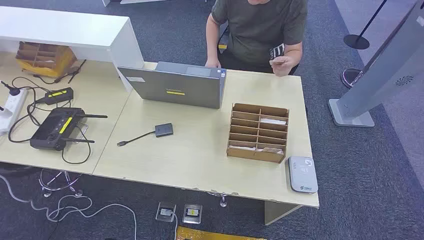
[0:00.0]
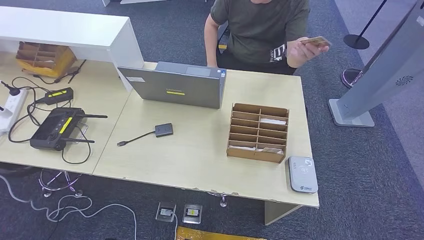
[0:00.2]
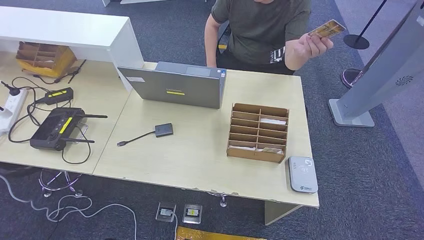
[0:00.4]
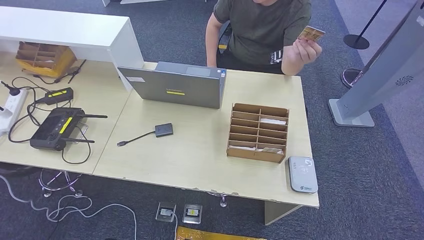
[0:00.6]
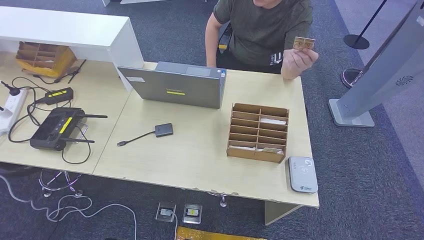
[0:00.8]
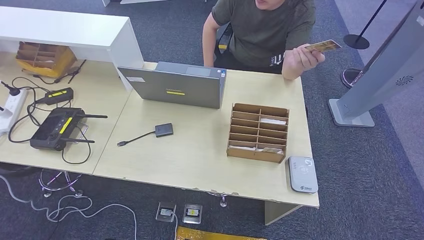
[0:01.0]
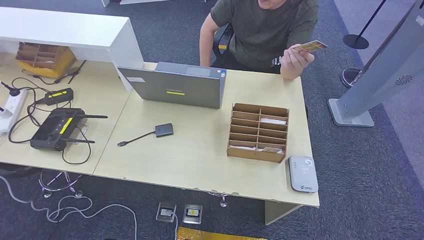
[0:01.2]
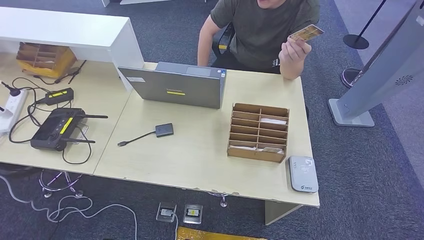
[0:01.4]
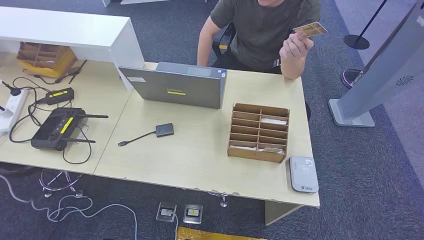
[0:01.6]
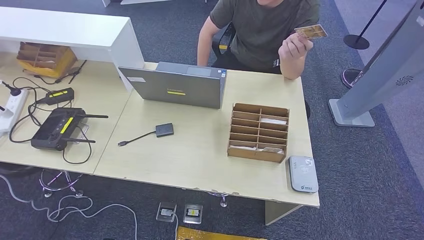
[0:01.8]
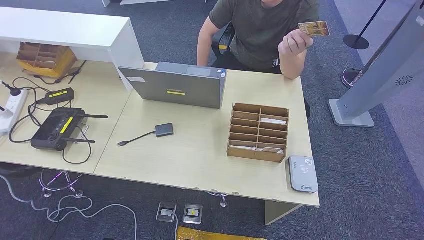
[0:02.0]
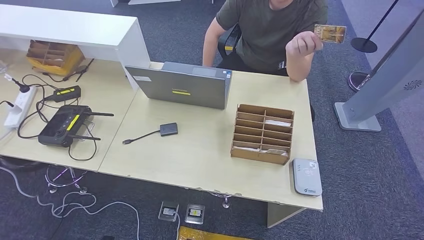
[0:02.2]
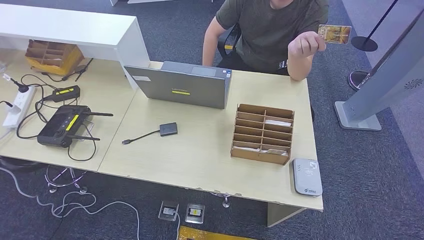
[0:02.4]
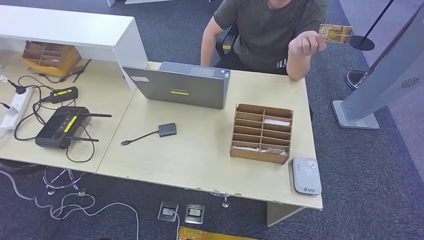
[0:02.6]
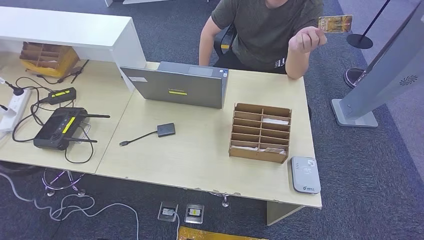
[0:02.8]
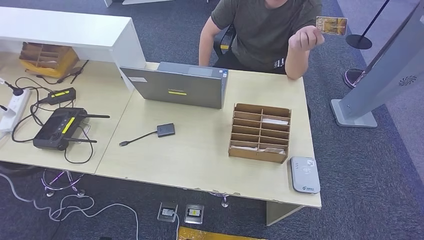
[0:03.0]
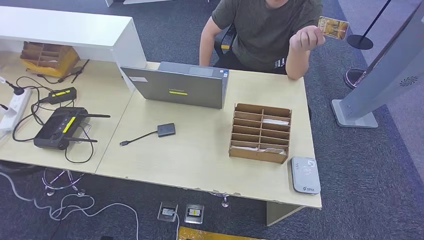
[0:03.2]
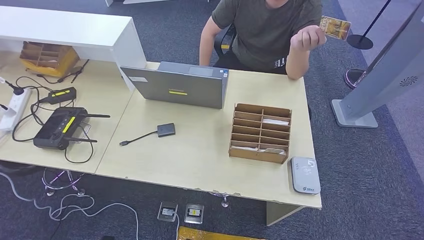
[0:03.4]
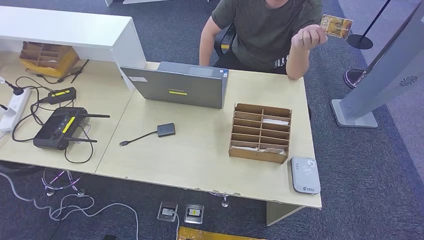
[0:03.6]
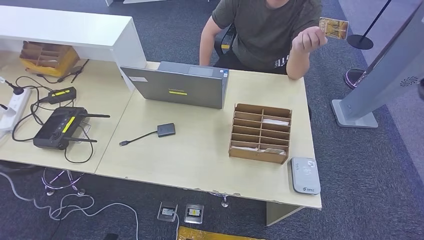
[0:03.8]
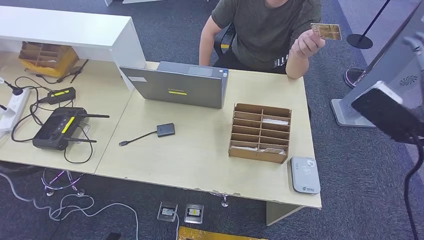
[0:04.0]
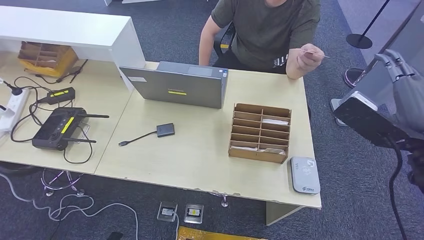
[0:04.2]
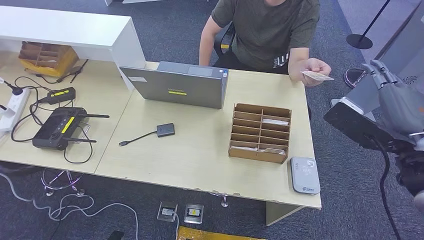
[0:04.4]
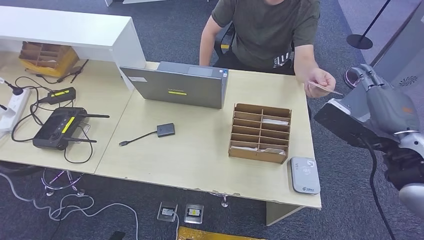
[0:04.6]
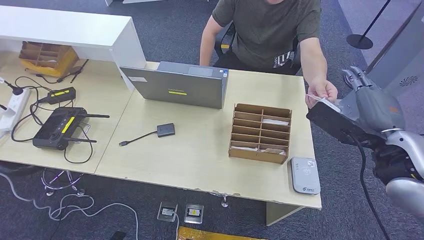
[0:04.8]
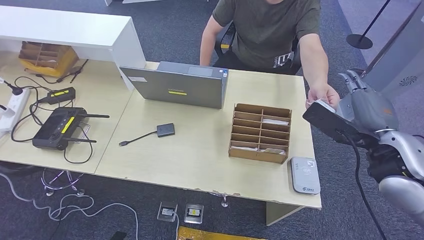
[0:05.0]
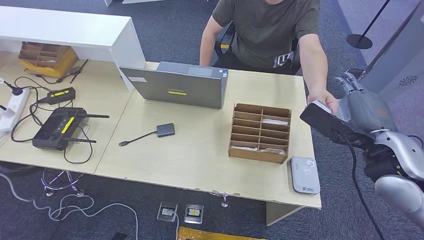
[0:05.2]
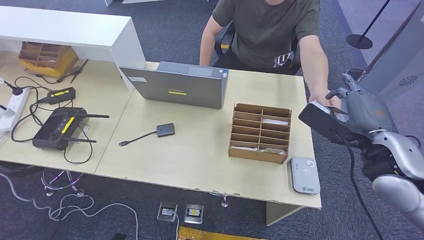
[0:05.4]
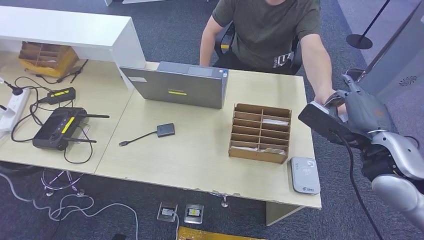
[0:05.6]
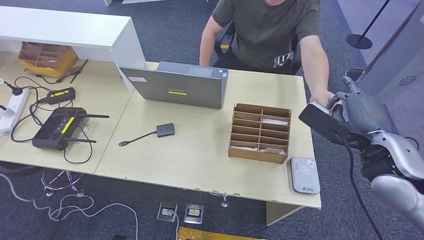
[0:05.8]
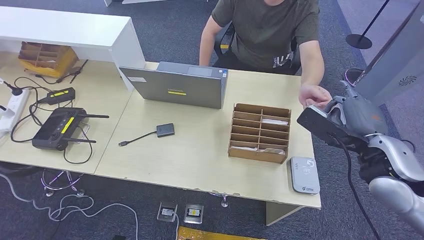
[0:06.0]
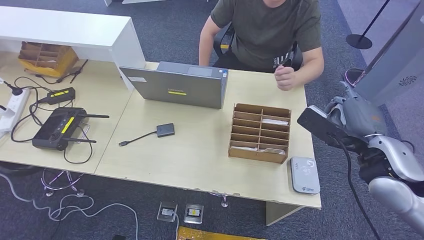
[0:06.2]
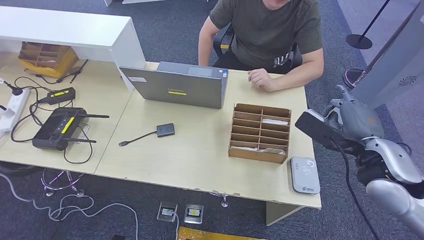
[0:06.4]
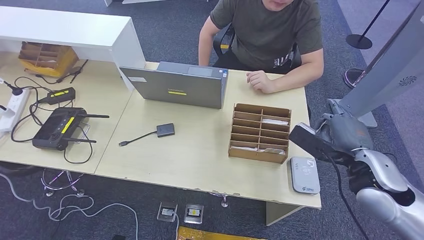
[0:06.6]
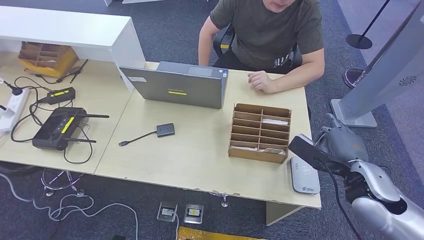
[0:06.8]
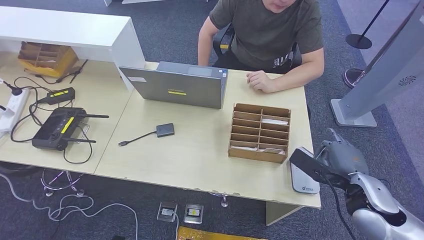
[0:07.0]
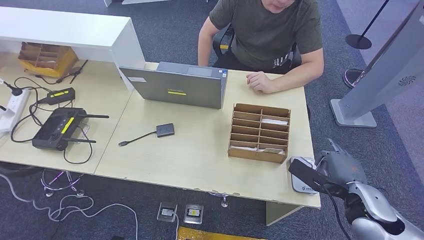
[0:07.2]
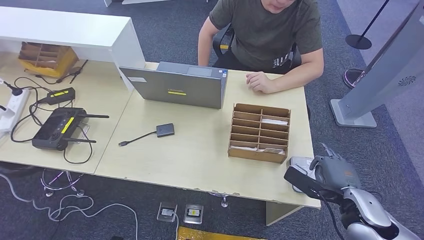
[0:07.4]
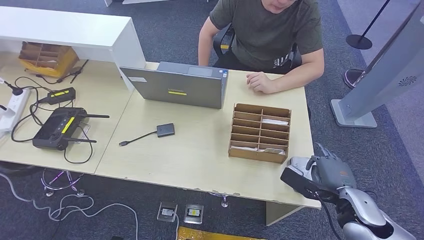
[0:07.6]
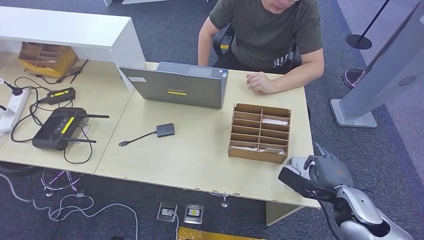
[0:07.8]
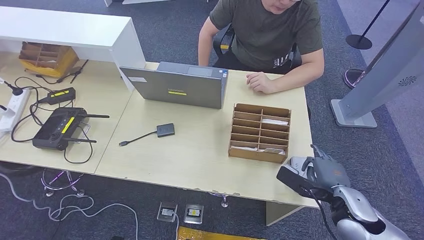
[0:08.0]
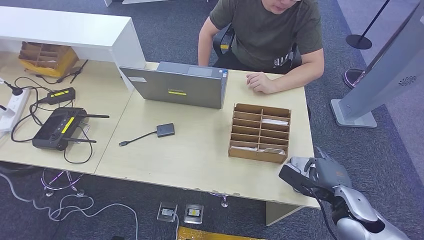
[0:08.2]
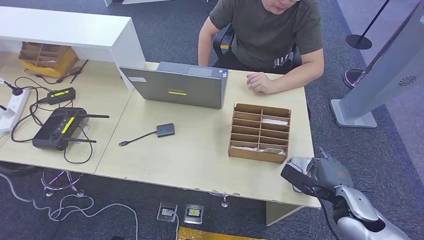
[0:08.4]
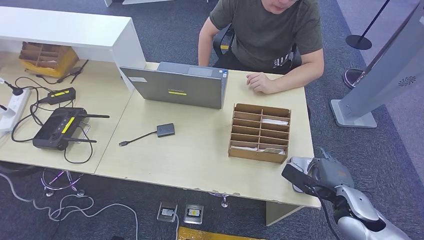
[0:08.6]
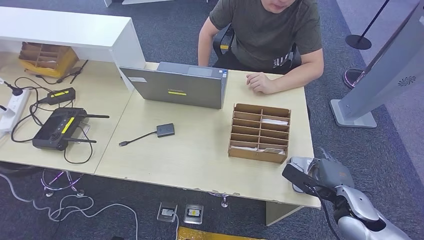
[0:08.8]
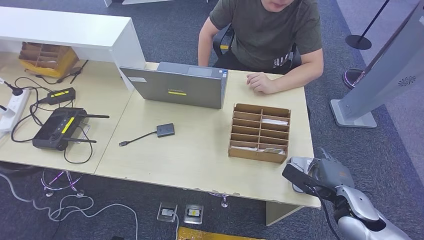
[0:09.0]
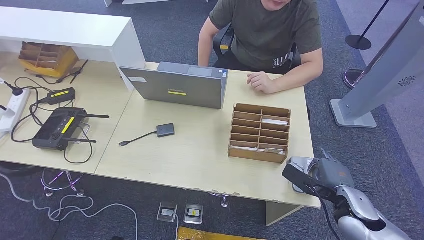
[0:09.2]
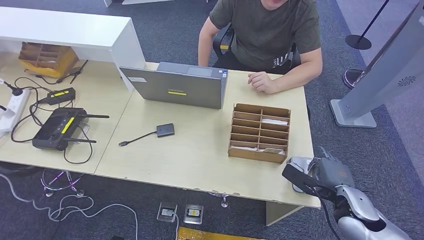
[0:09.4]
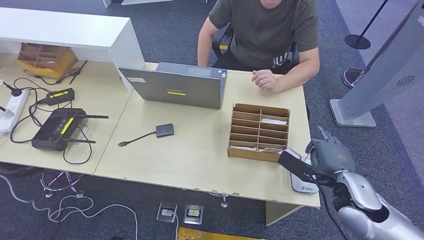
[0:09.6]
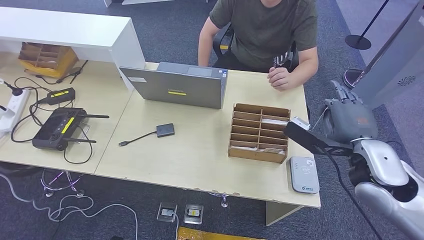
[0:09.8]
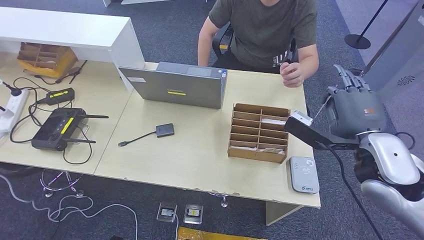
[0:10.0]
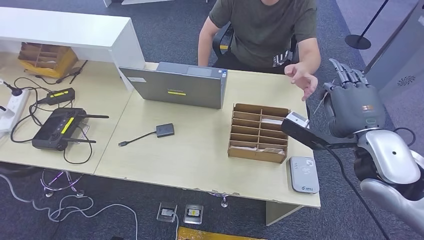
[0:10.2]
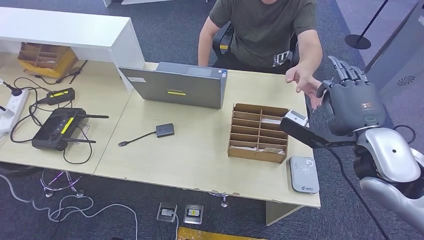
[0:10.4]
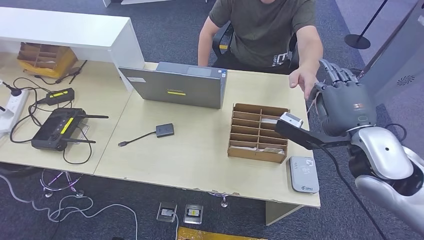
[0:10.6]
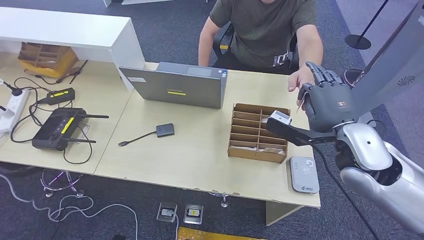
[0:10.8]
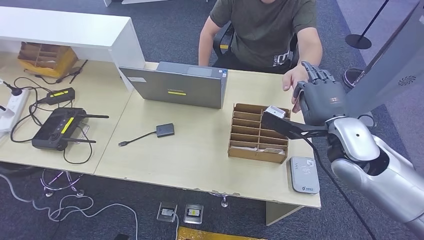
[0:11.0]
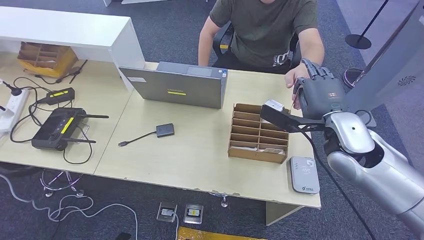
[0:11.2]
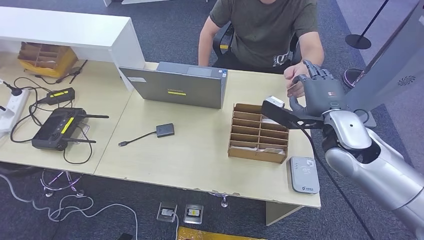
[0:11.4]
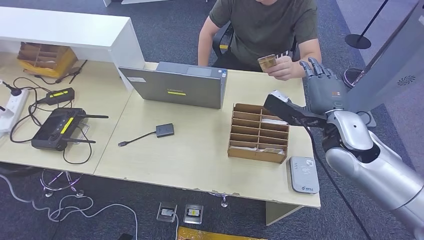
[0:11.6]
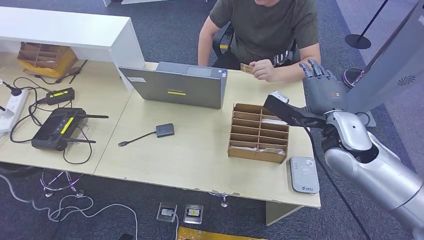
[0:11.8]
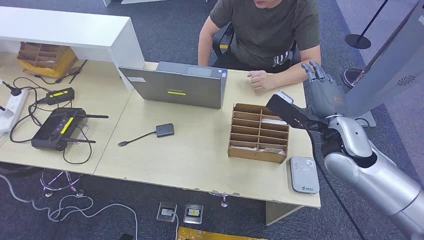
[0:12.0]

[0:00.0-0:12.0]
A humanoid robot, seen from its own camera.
Step, 0.0 to 6.8 s: Take the ID card from the person's hand.
Step, 7.0 to 9.0 s: Place the ID card on the card reader.
Step, 9.2 to 11.8 s: Hand the ID card to the person.
1.6 to 3.0 s: The right hand heads upward, covering some 40 cm.
3.0 to 4.4 s: The right hand shifts approximately 30 cm to the left and forward.
4.4 to 6.0 s: The right hand heads downward, covering about 5 cm.
6.0 to 7.6 s: The right hand goes approximately 15 cm downward.
7.6 to 9.0 s: The hands move only a little.
9.0 to 10.4 s: The right hand goes about 20 cm upward.
10.4 to 12.0 s: The right hand is displaced forward and downward by about 5 cm.

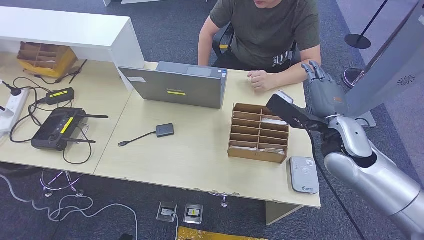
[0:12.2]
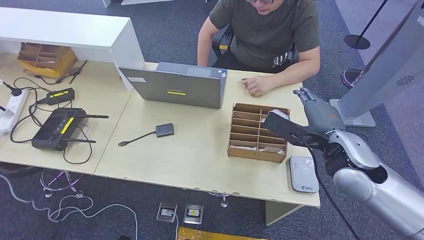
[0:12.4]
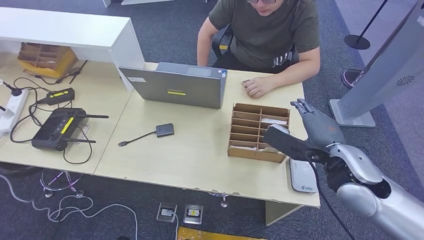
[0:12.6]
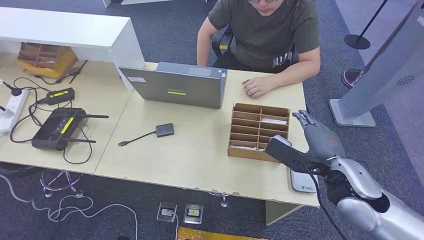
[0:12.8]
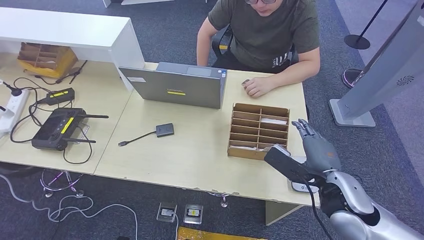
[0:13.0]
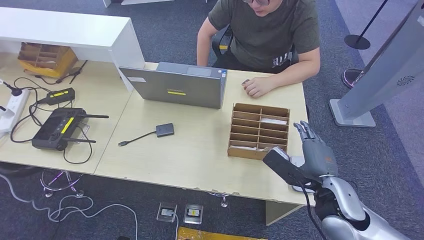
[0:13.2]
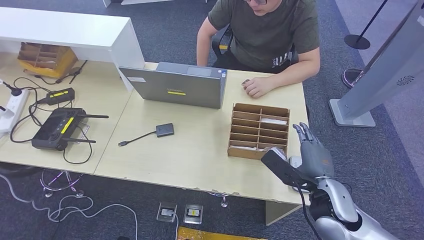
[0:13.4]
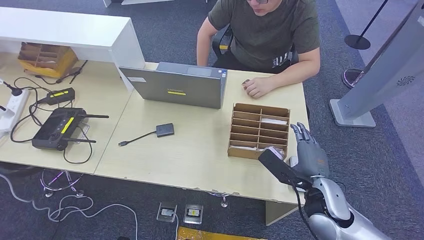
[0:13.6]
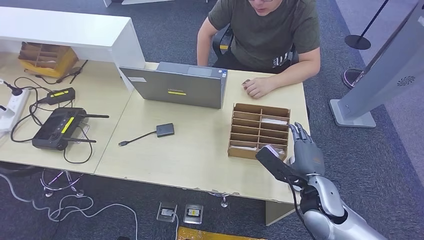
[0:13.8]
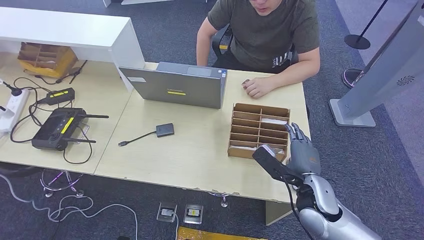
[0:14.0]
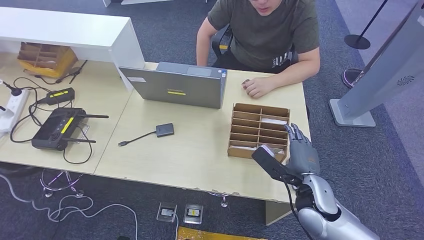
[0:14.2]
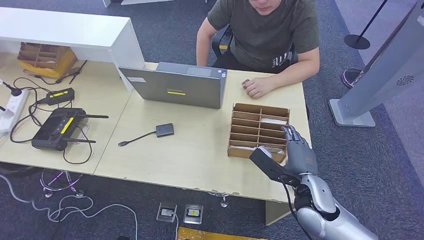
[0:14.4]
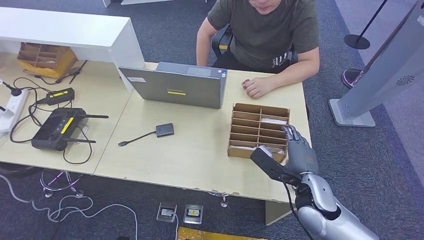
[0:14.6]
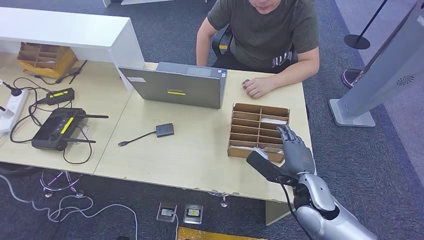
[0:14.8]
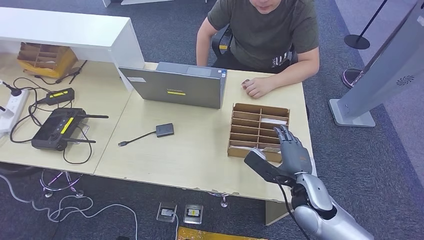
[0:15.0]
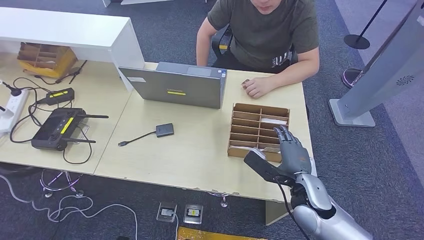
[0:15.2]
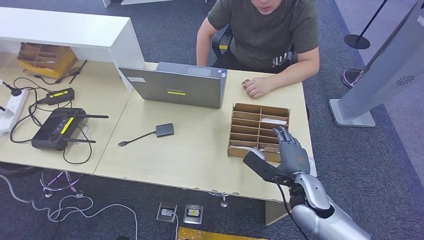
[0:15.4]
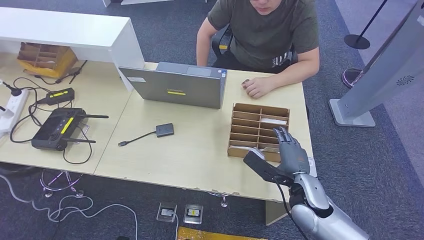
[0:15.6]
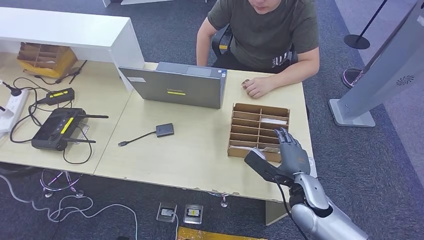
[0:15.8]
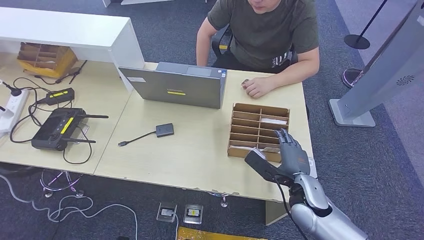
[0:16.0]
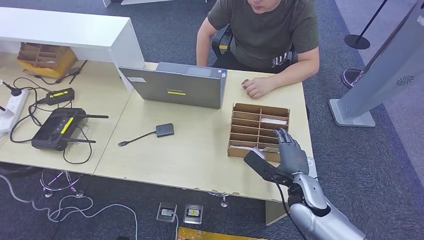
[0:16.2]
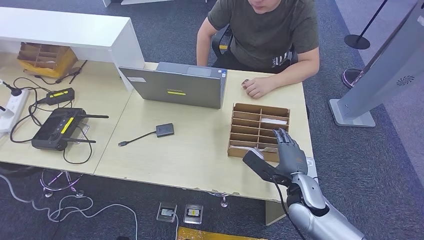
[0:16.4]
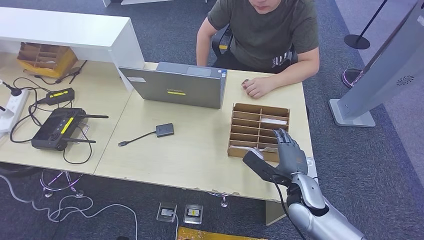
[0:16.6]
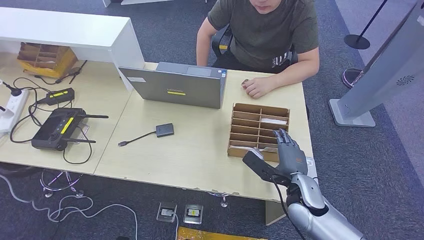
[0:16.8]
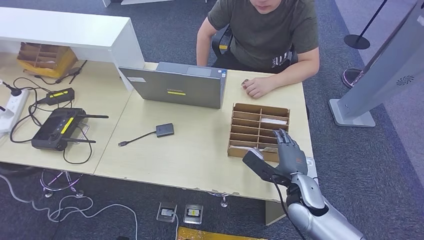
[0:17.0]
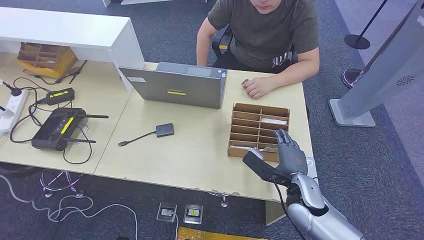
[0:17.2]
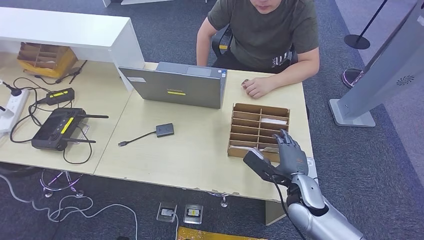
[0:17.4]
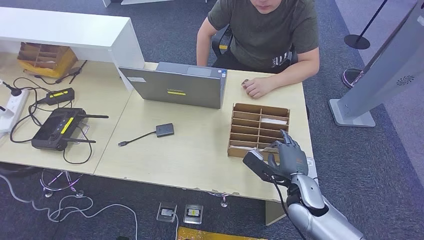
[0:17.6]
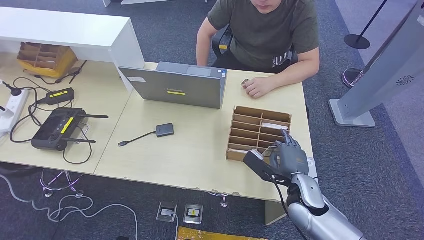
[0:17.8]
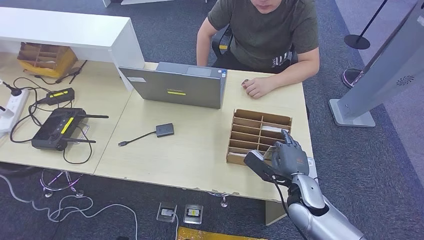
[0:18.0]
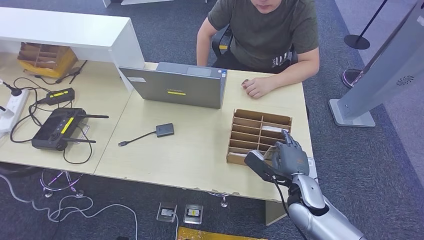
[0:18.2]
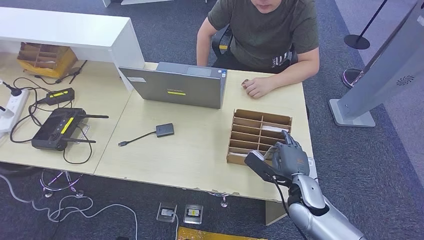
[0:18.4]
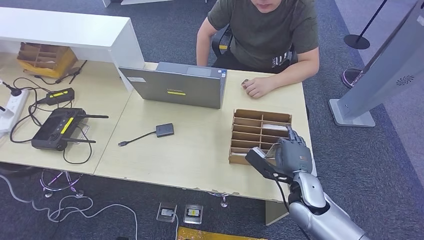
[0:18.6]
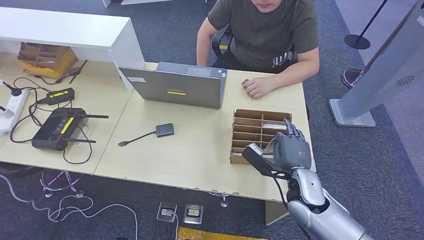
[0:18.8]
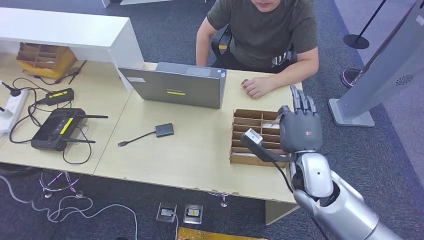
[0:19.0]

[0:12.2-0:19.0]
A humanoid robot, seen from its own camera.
12.2 to 13.6 s: The right hand shifts roughly 15 cm downward and backward.
13.6 to 16.2 s: The hands move only a little.
16.2 to 17.6 s: Both hands stay put.
17.6 to 19.0 s: The right hand shifts approximately 10 cm upward.
